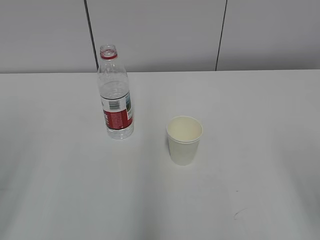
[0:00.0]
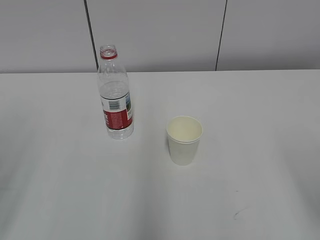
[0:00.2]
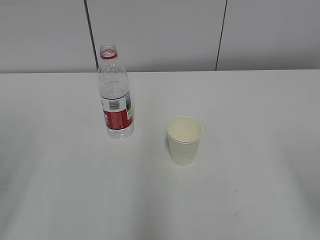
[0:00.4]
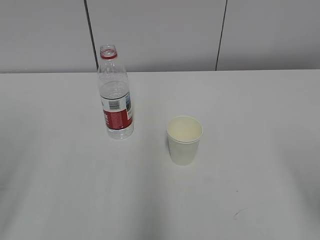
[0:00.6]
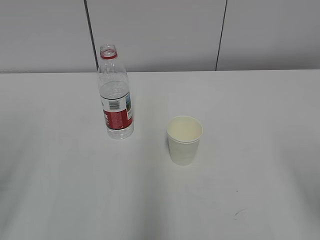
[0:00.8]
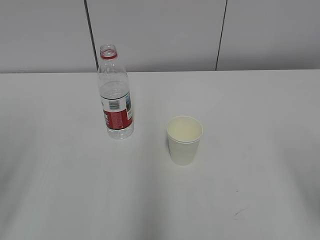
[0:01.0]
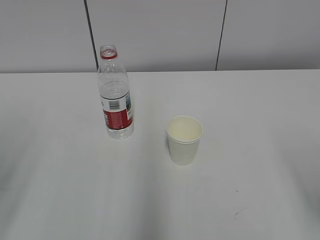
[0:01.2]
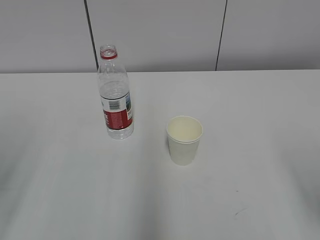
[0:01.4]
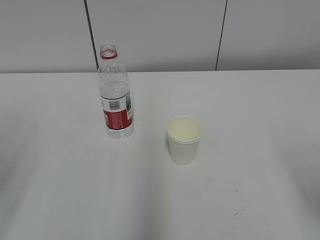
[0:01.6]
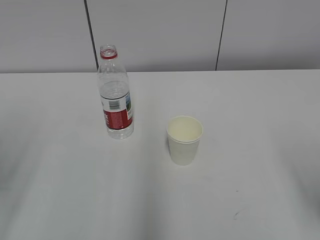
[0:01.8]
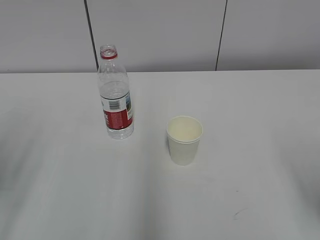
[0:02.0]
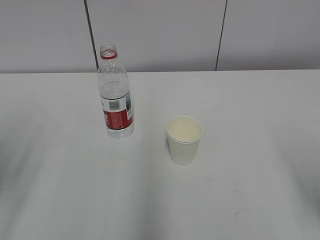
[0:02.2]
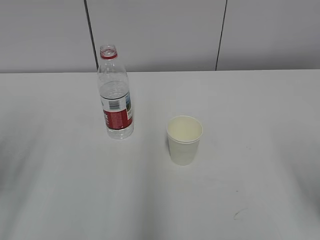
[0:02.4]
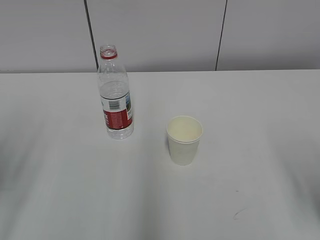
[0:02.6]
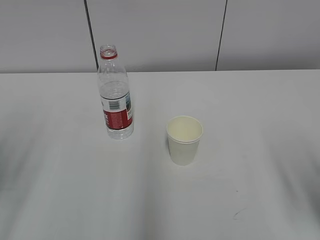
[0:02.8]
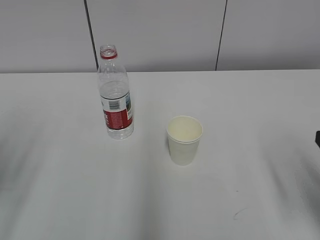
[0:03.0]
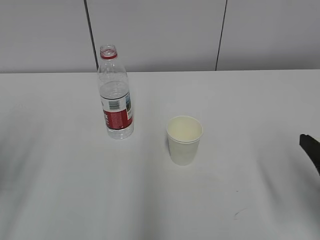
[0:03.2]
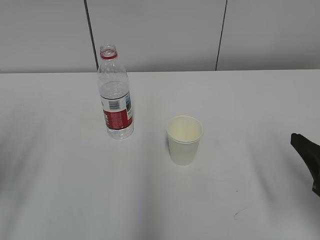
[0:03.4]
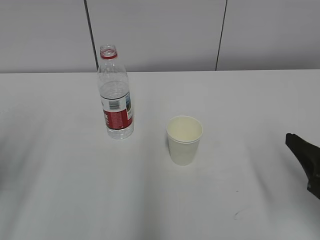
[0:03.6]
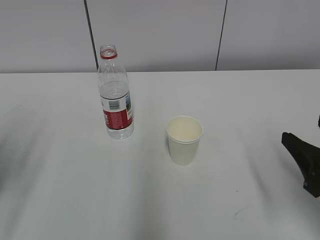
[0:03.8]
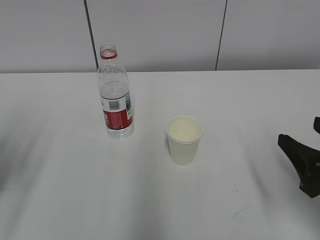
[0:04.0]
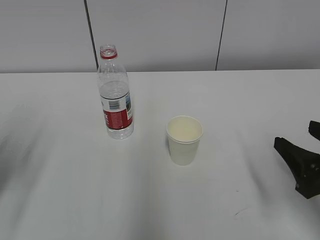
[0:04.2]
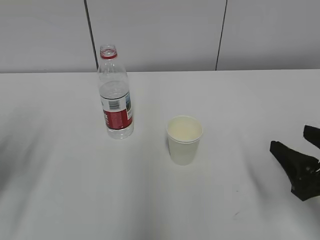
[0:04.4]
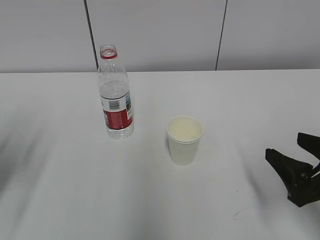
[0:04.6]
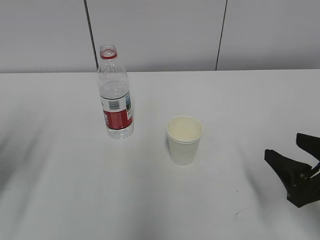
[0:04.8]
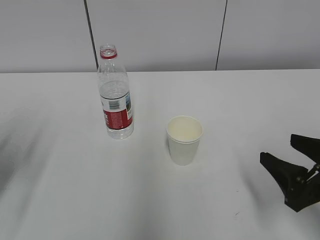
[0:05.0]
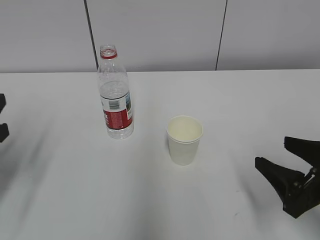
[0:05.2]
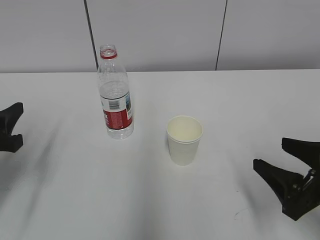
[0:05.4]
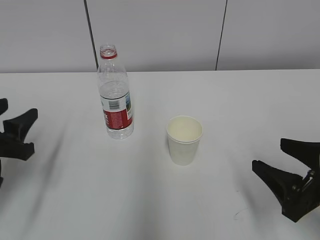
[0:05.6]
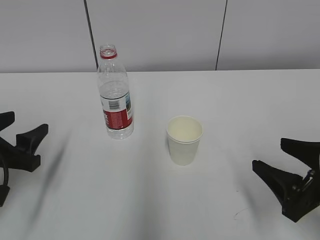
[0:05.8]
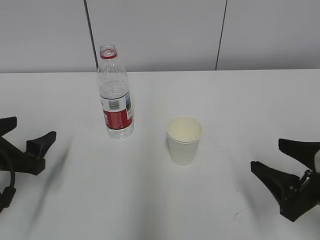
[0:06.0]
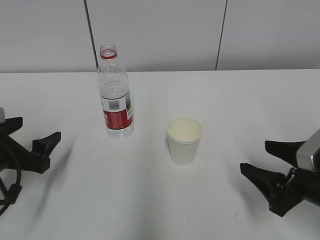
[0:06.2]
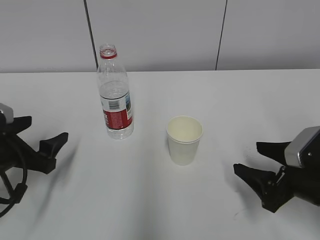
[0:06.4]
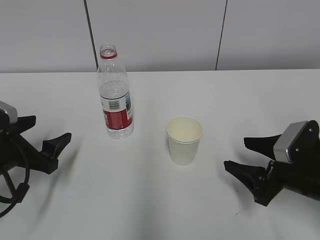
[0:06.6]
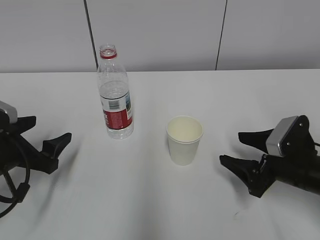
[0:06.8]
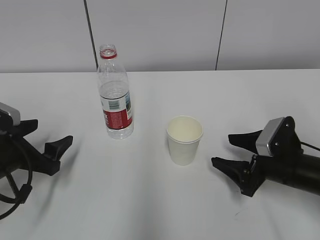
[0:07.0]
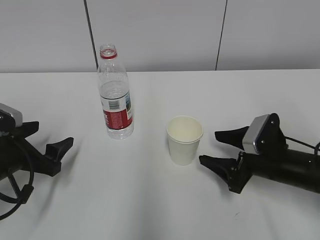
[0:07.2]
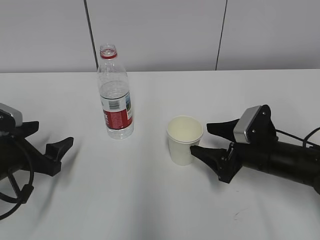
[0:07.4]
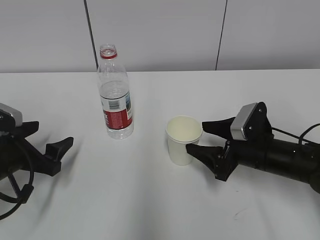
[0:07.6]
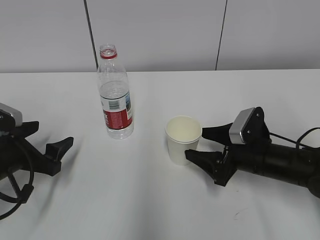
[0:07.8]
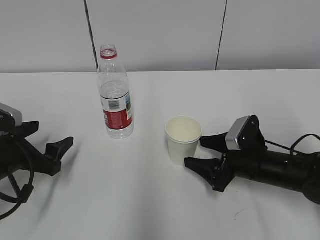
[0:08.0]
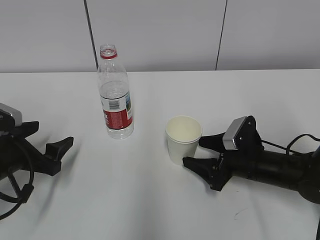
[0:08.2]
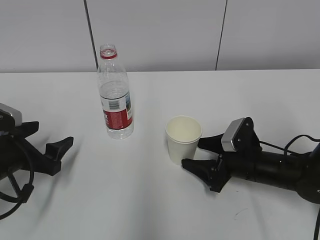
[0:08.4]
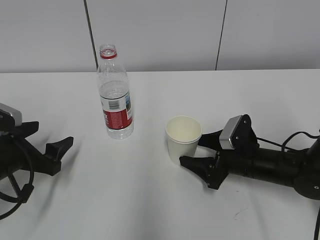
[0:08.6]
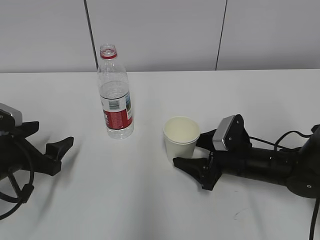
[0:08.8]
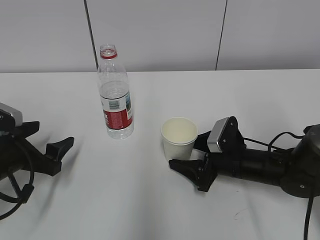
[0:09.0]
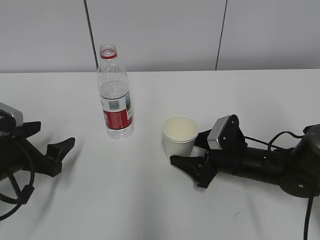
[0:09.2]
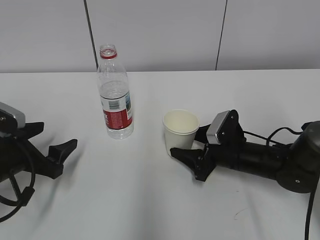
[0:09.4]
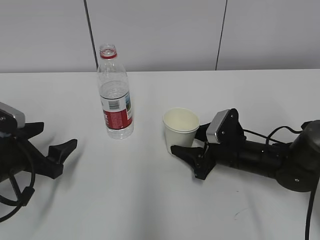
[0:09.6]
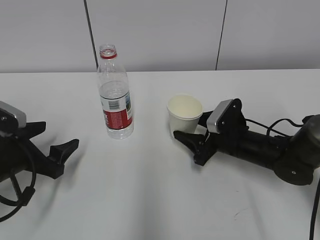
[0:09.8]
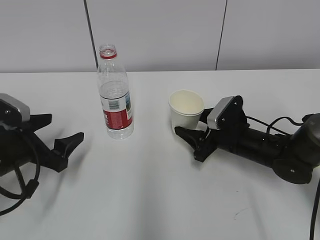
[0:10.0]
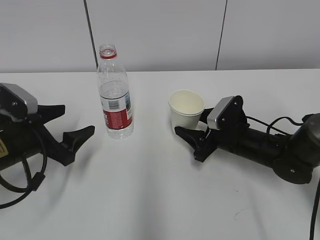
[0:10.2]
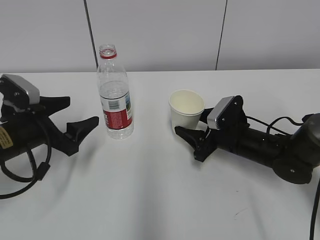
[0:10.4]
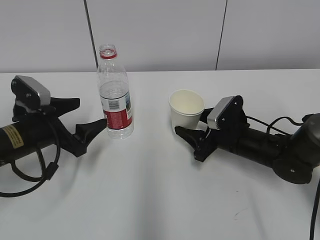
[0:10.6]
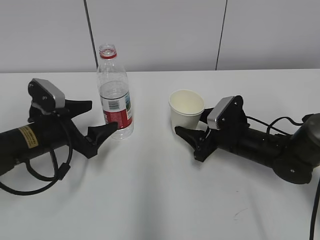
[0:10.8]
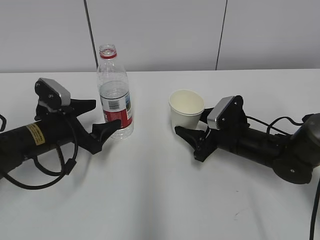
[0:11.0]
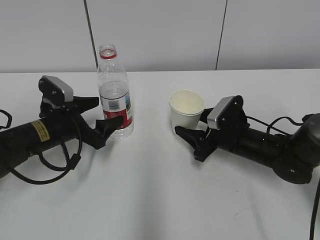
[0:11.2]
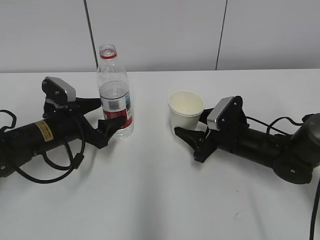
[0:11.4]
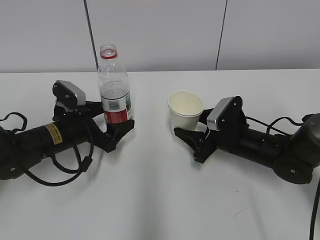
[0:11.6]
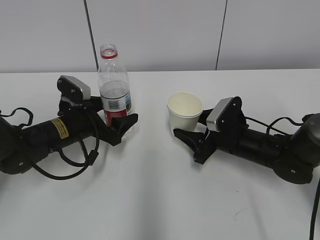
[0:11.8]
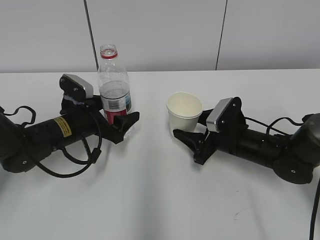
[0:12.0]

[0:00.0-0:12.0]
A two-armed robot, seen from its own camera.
Step, 0:00.0 to 0:06.6: Grab the paper cup with the right hand.
0:03.0 to 0:04.4: The right gripper changes place by about 5 cm.
0:04.4 to 0:06.0: The left gripper heads downward, covering approximately 10 cm, and opens.
0:06.0 to 0:07.6: The right gripper goes about 15 cm forward and to the left.
0:07.6 to 0:09.0: The right gripper changes place by approximately 5 cm.
0:09.0 to 0:10.4: The right gripper closes its fingers.
0:10.4 to 0:12.0: The left gripper goes approximately 10 cm to the right and forward.

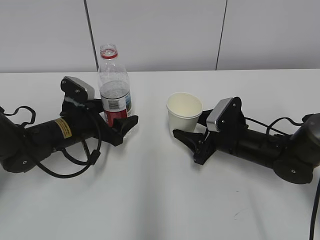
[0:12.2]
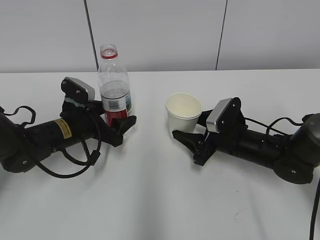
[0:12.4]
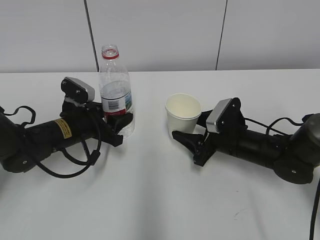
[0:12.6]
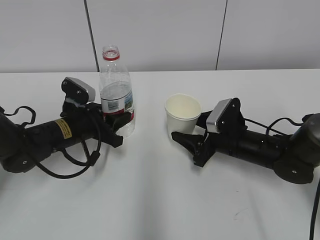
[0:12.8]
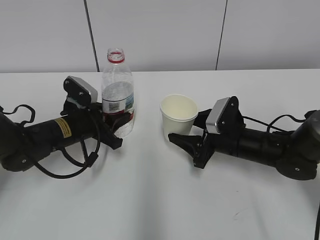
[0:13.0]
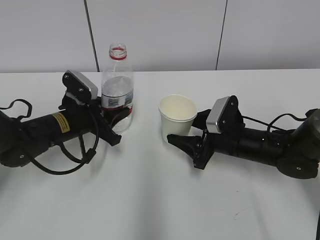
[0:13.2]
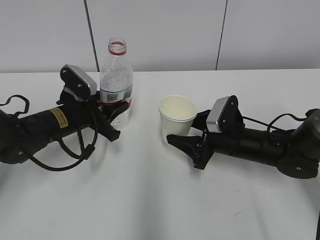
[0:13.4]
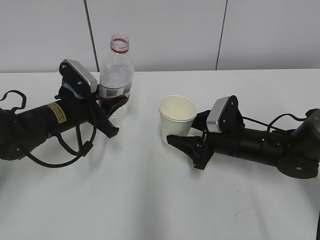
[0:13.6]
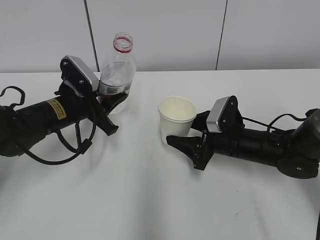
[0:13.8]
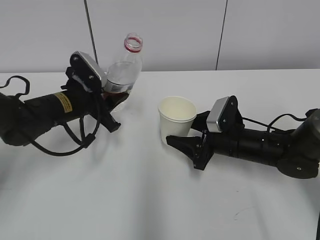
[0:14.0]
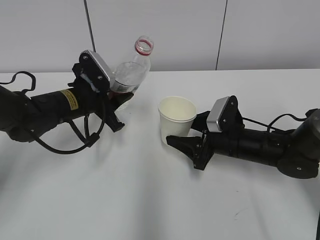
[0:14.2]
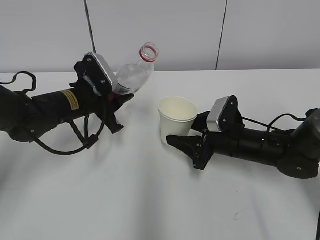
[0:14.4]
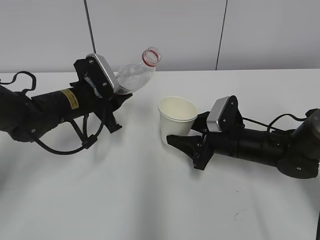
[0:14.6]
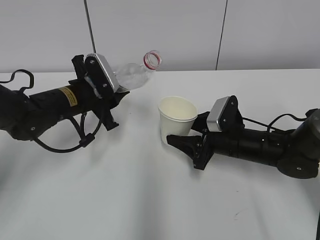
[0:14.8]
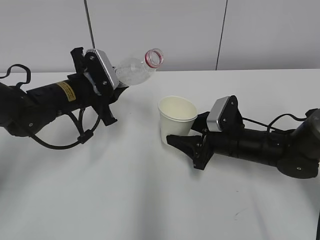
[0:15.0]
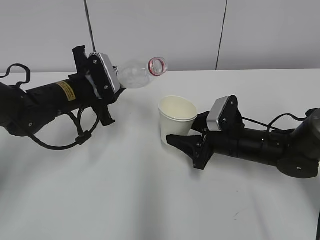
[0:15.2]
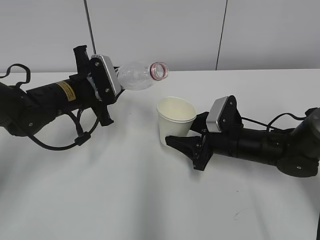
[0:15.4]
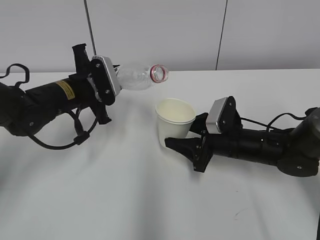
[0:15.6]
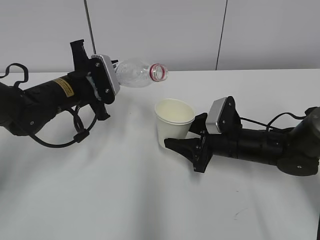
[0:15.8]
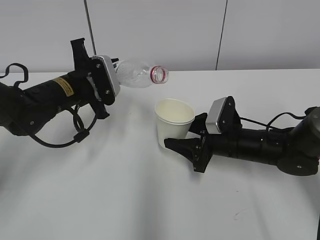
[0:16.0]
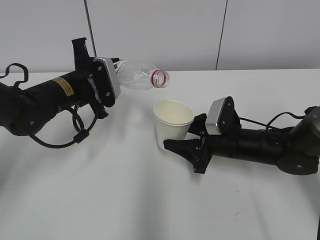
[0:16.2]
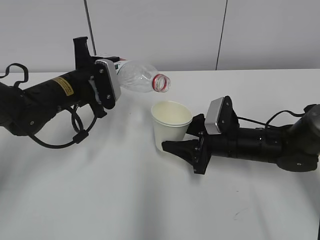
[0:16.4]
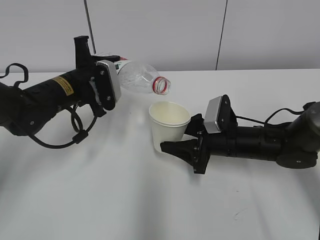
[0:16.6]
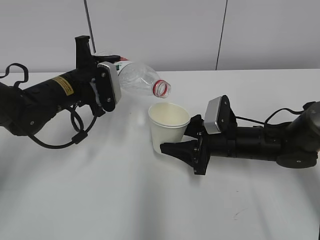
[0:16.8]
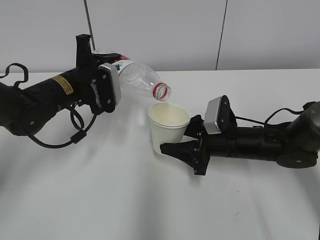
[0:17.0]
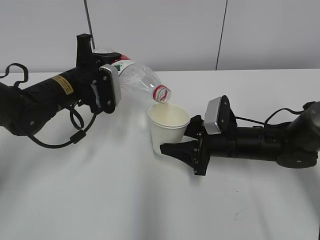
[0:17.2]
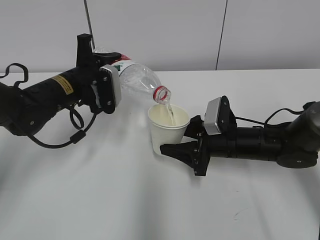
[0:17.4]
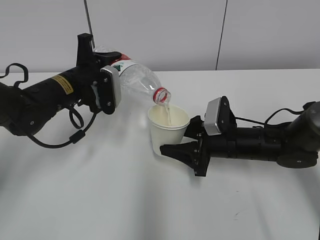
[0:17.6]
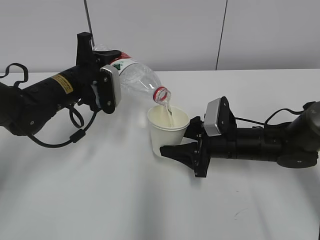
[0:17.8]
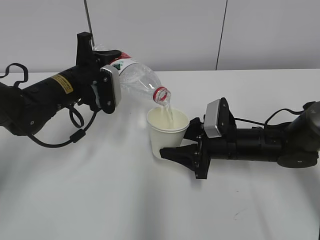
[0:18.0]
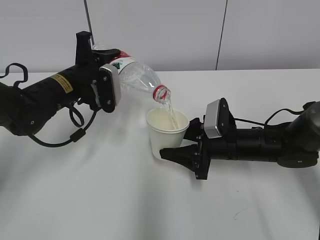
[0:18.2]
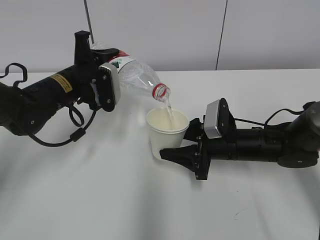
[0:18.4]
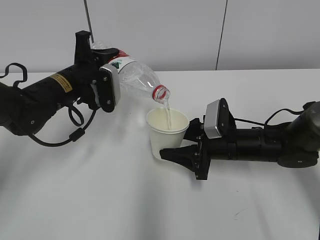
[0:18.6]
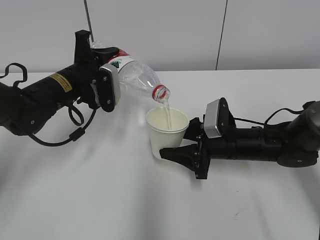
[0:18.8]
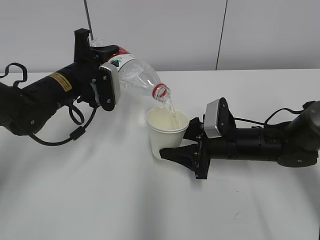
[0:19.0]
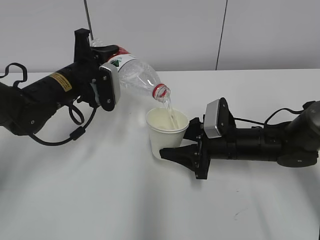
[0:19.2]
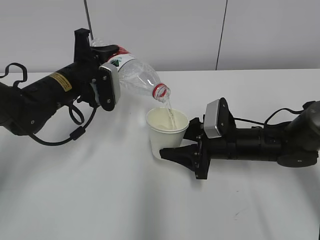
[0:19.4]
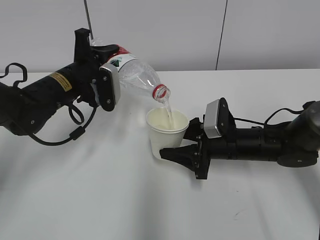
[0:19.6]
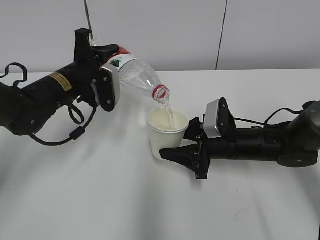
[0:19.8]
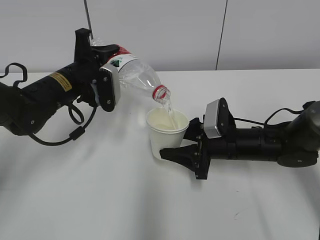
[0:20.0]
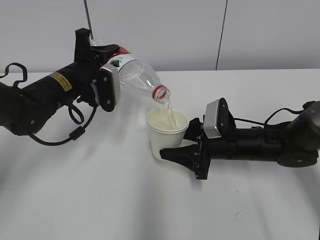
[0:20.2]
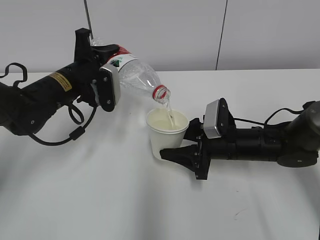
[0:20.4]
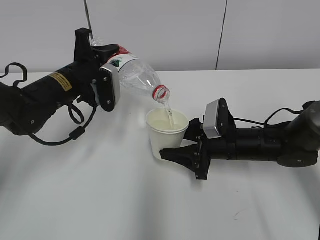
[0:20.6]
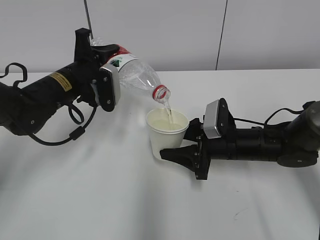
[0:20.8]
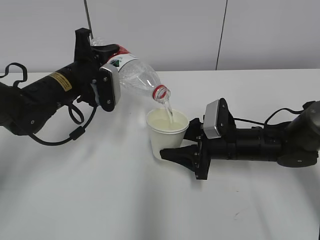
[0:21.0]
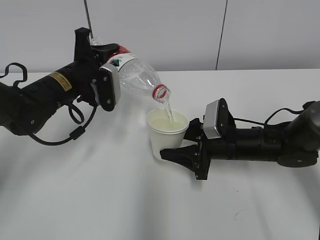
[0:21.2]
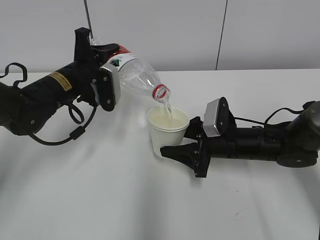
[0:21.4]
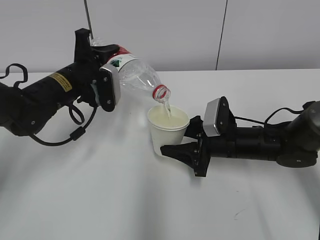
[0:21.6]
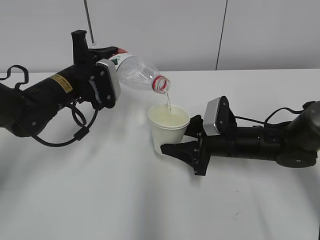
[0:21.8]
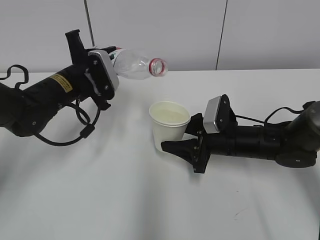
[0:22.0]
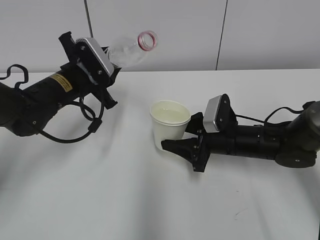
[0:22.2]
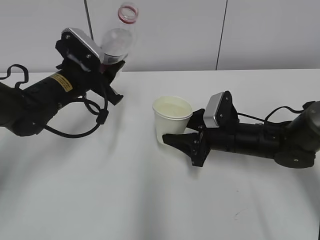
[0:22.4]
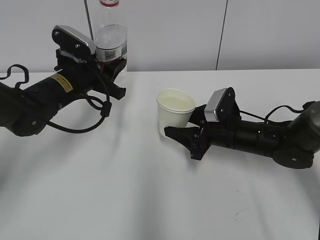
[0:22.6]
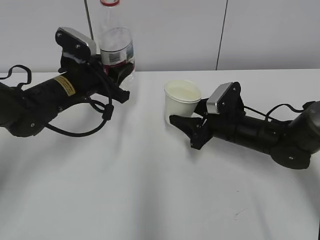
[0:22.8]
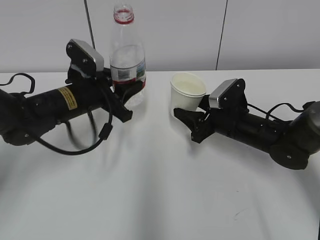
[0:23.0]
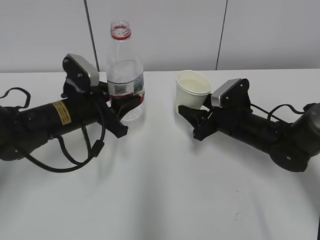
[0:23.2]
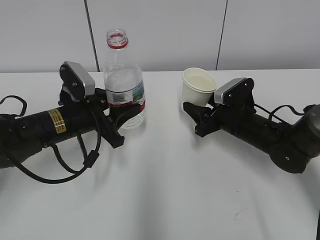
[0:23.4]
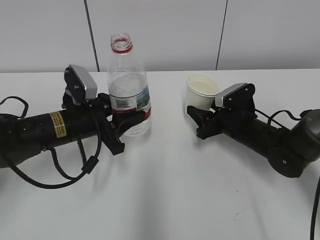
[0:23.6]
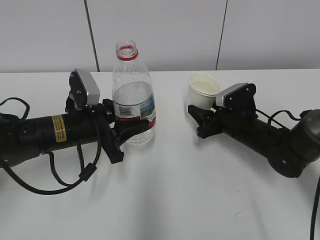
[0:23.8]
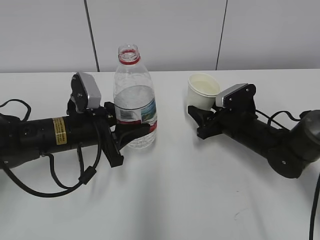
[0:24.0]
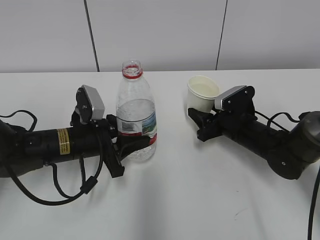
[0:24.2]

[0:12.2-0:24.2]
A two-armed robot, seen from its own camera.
Step, 0:13.4 to 0:17.2: Fill water with the right hand.
Step, 0:13.4 to 0:17.2: Pour water with the left hand.
Step, 0:17.4 to 0:17.8: Collect water with the left hand.
Step, 0:18.0 to 0:20.6: Place the water bottle with the left hand.
0:12.2 to 0:13.8: The left gripper closes.
0:16.6 to 0:18.2: There are only small adjustments of the grippers.
0:18.2 to 0:21.2: Both grippers stay about where they are.
0:22.6 to 0:24.2: The left gripper travels backward and downward by roughly 10 cm.
